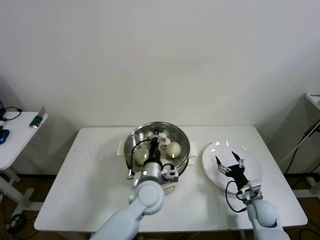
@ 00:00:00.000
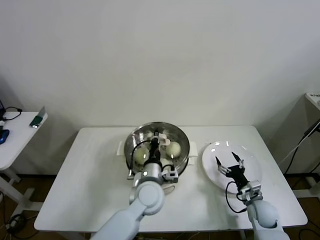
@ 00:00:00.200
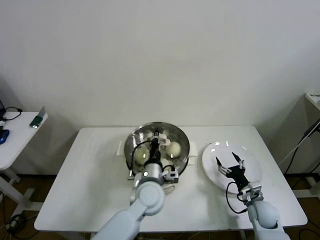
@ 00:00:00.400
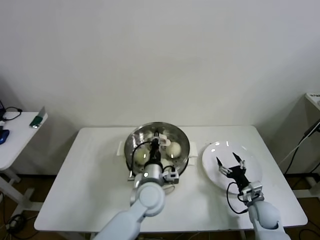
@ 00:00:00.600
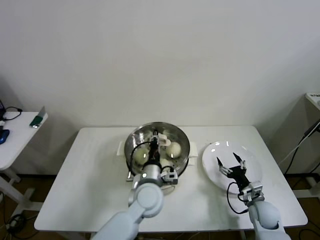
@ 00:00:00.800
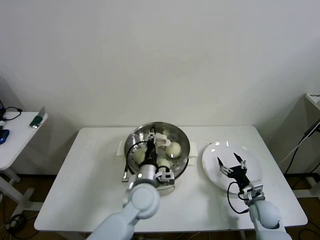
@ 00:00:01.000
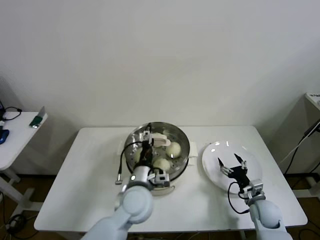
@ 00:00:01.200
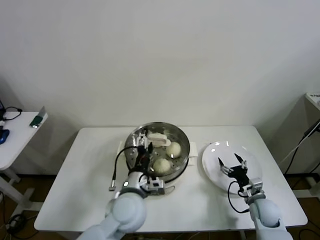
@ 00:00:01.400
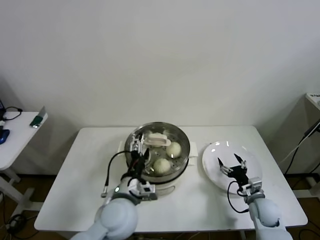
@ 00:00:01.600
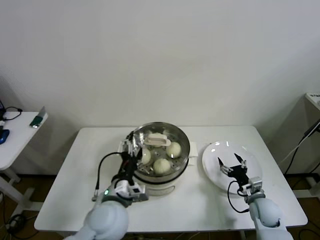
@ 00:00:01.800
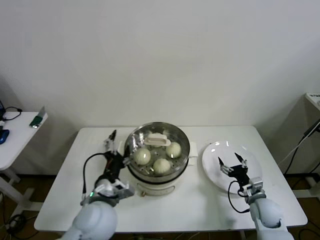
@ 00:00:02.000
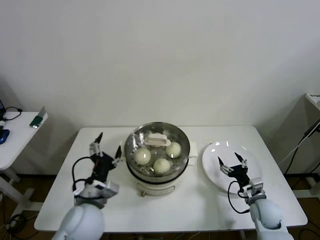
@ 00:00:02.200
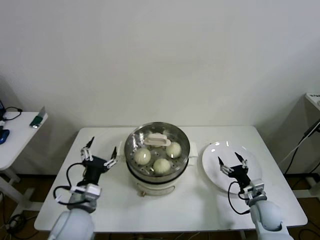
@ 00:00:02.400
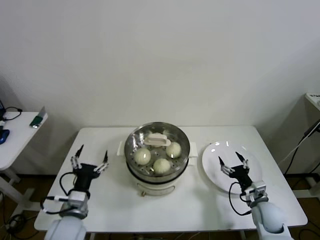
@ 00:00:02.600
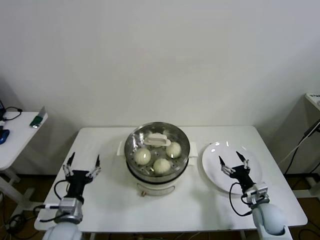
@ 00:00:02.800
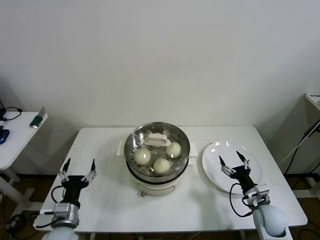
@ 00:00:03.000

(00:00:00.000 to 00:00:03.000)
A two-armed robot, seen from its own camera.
00:00:00.000 - 00:00:01.600: The left gripper heads to the left and backward, covering roughly 10 cm, and opens up.
00:00:01.600 - 00:00:03.000: The left gripper heads to the left and downward, covering some 20 cm.
